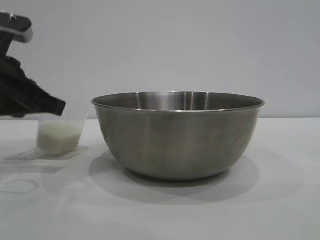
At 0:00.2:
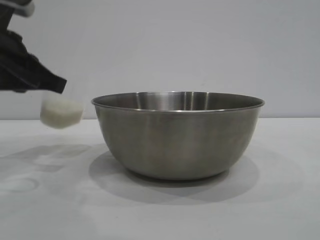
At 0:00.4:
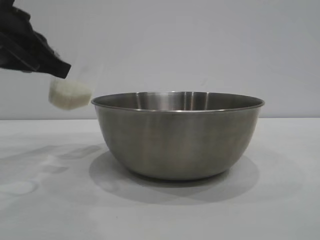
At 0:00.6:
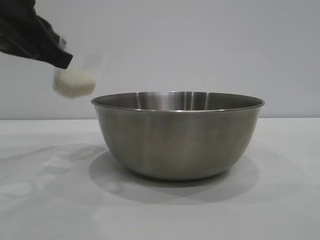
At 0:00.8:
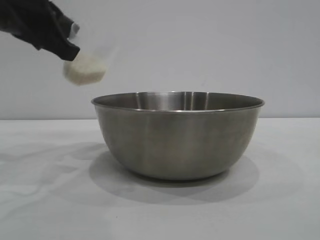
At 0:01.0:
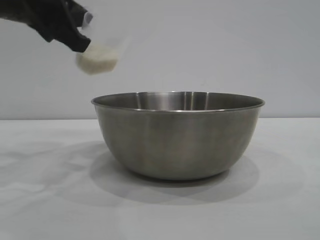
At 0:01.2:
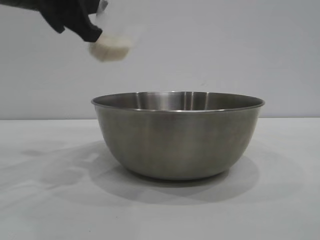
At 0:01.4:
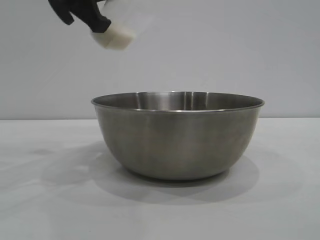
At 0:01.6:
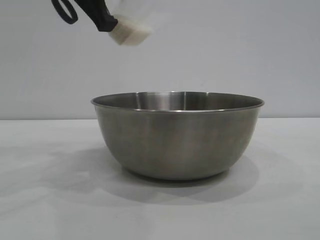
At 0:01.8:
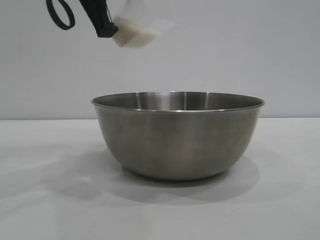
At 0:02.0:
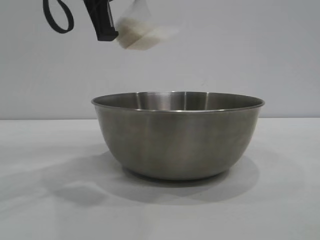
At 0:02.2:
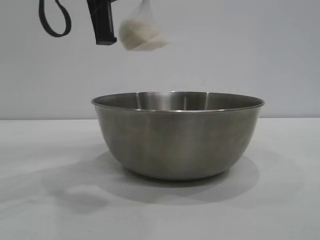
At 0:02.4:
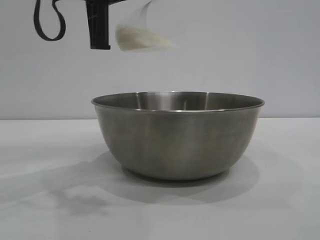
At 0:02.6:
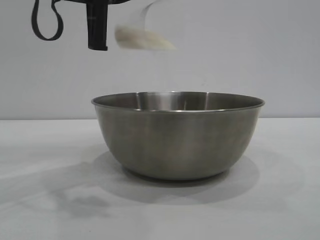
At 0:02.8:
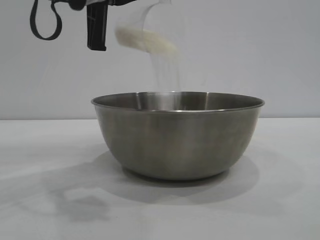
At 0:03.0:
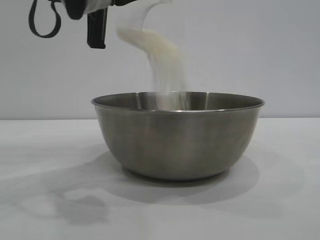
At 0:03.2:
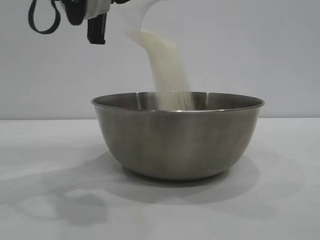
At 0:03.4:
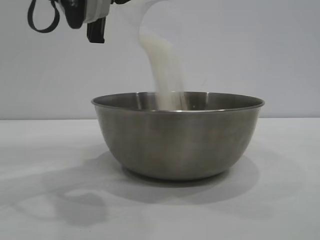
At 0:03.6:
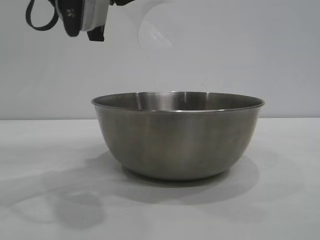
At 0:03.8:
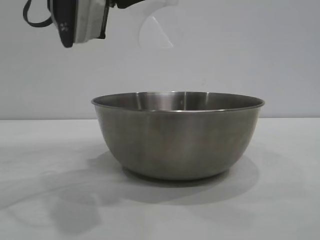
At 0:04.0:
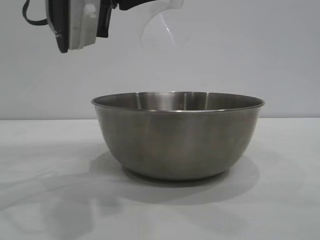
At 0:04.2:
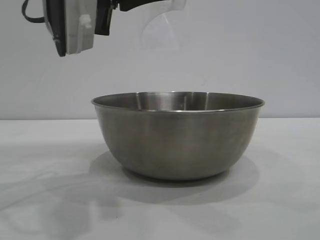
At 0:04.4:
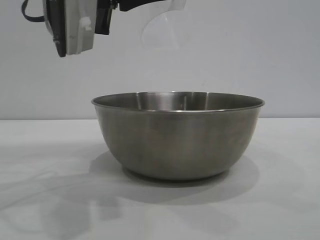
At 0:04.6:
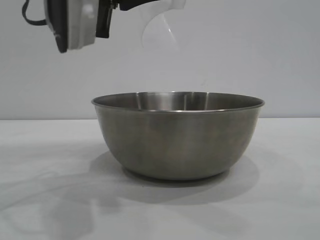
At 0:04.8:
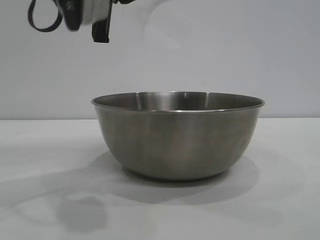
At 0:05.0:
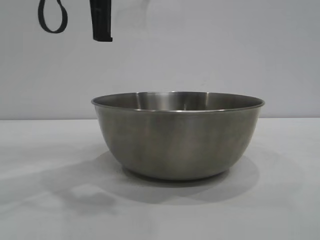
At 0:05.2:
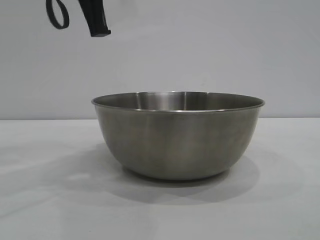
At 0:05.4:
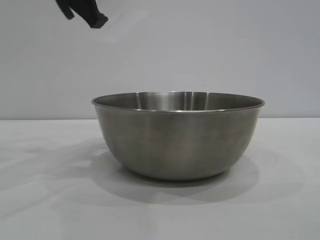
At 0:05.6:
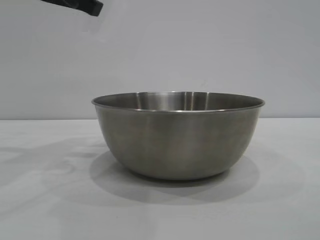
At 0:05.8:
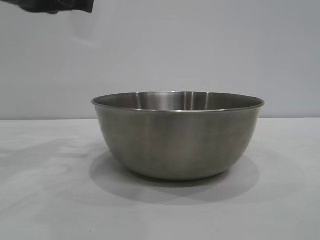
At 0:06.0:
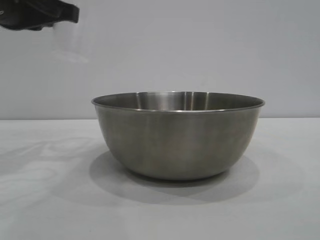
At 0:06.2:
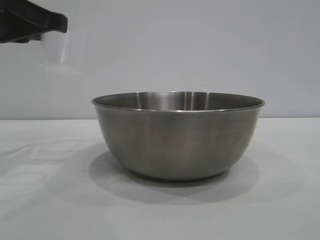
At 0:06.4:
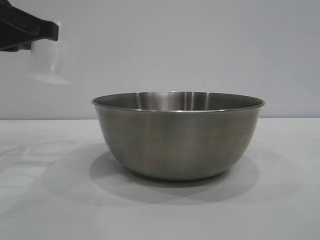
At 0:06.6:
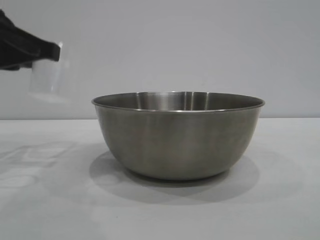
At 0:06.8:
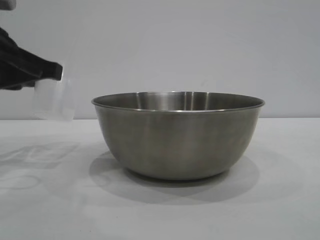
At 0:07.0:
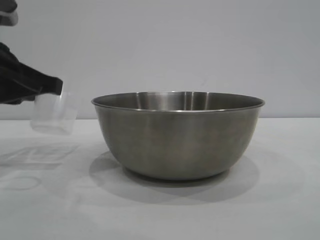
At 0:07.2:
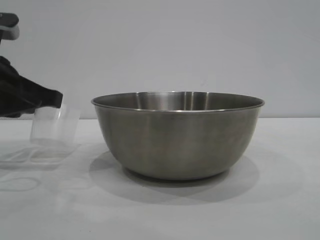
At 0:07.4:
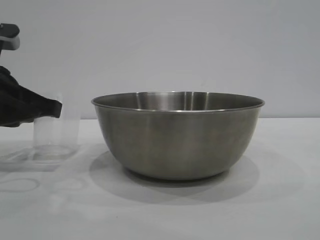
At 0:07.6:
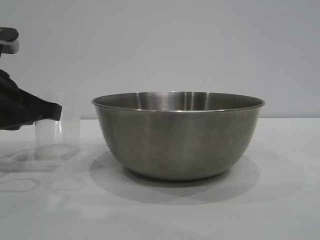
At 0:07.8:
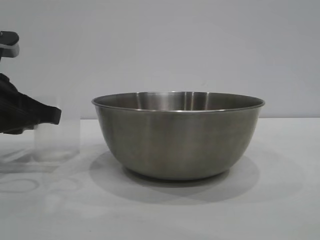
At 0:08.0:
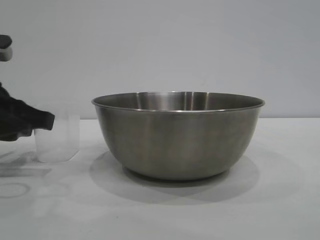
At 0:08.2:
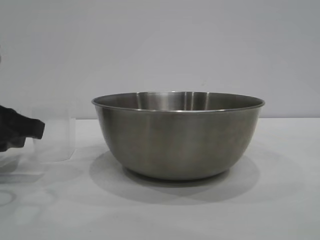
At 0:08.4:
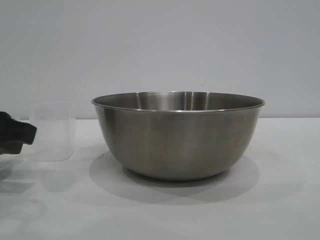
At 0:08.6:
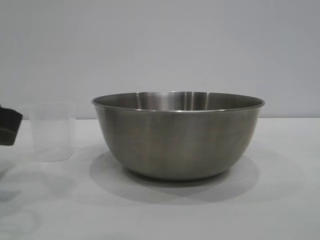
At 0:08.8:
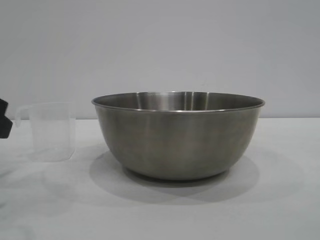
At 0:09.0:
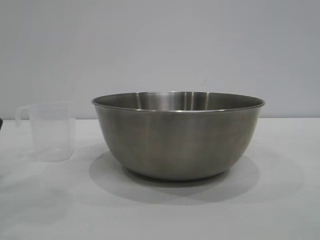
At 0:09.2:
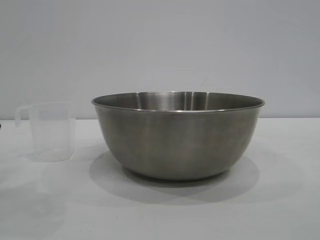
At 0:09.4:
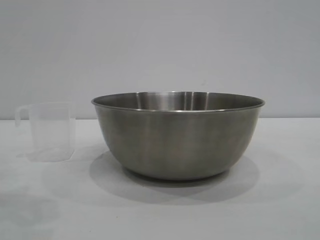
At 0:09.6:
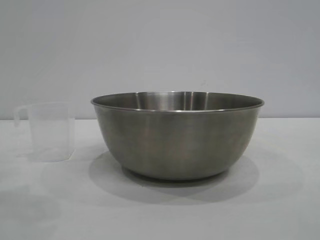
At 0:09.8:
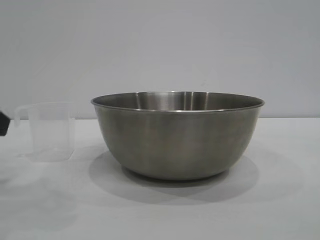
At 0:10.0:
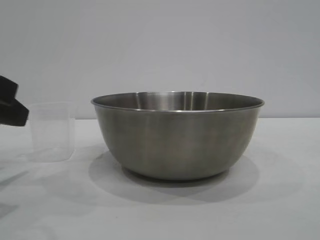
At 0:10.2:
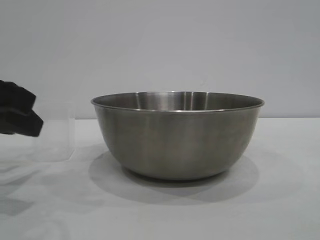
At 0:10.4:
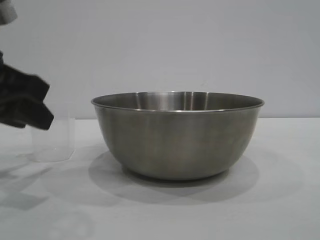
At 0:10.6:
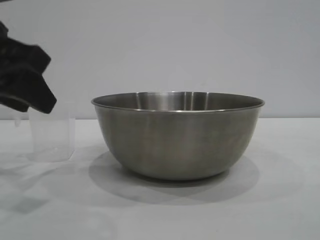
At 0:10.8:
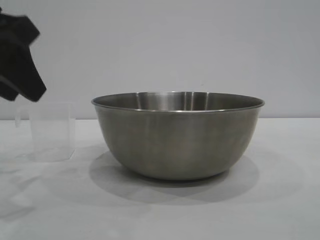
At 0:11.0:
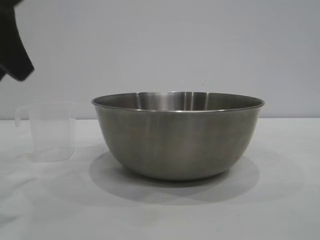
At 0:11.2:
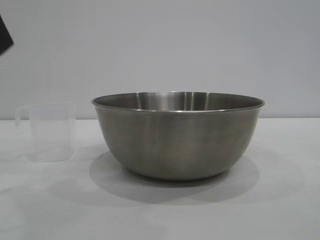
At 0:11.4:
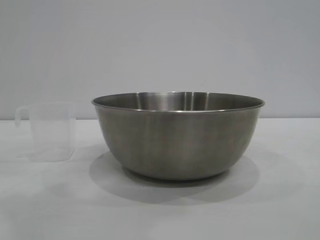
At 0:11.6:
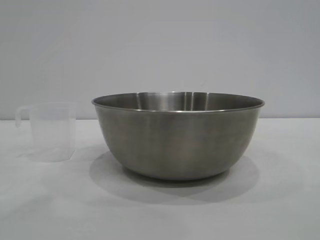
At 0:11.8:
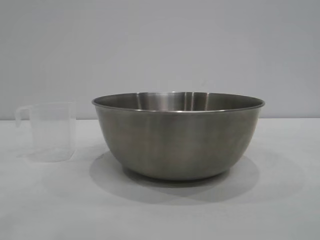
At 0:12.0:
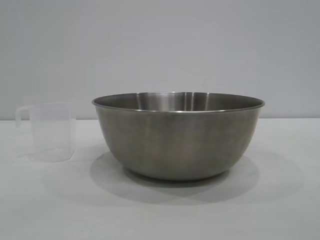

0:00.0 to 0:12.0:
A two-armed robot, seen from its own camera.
Task of the whole recording: the right gripper grasp the rice container and place it in the center of the table, the left gripper grasp the rice scoop and pour the rice into the rice container.
Step, 0:00.2 to 0:05.2: Pour the rice from the cup into the bowl with the left gripper.
Step, 0:05.6 to 0:09.2: Place the cup on the table with the left gripper.
